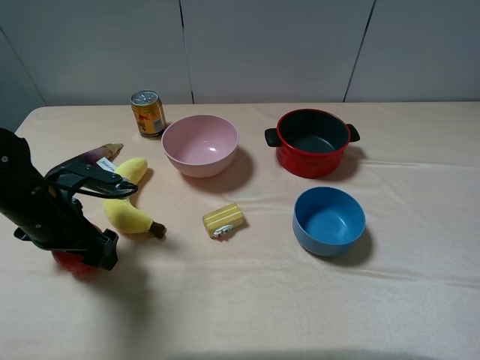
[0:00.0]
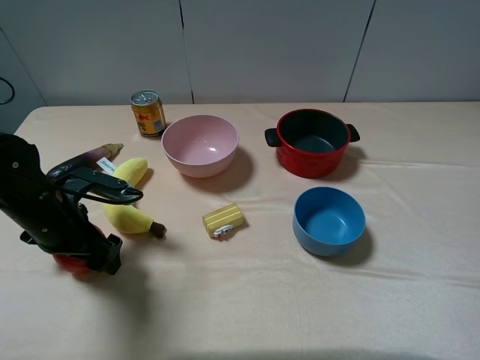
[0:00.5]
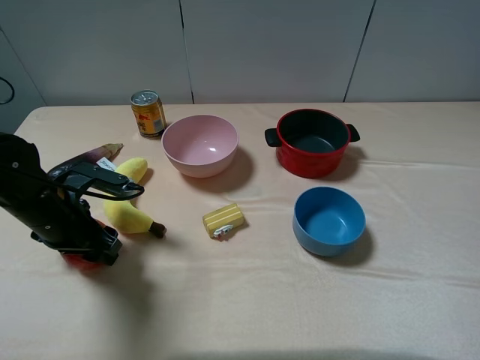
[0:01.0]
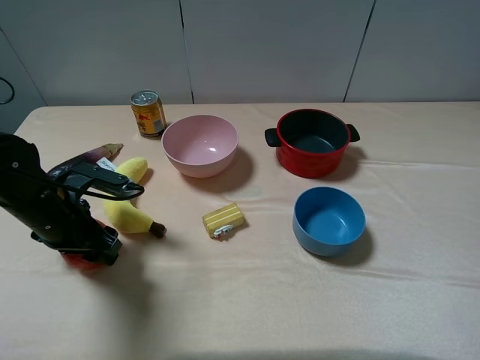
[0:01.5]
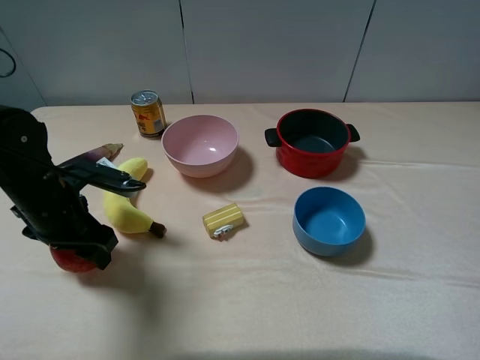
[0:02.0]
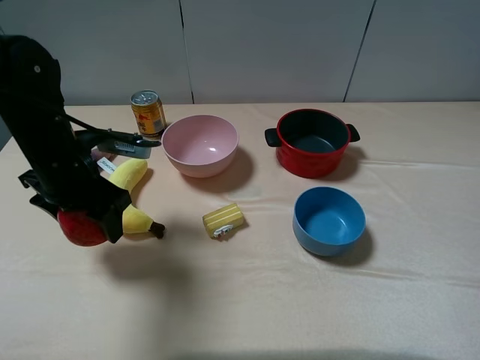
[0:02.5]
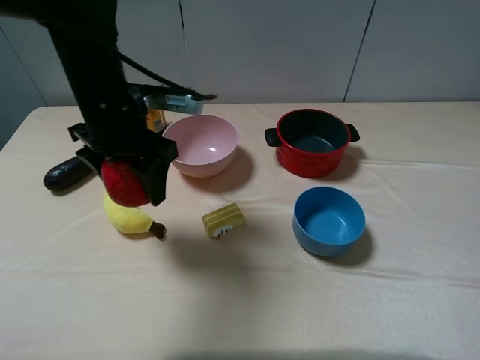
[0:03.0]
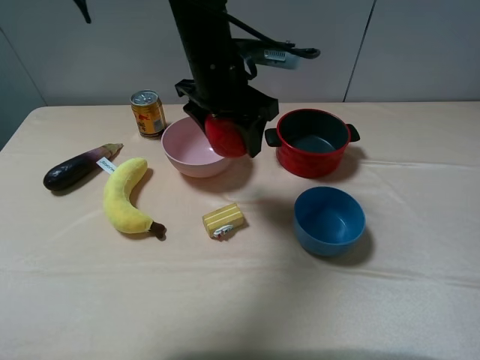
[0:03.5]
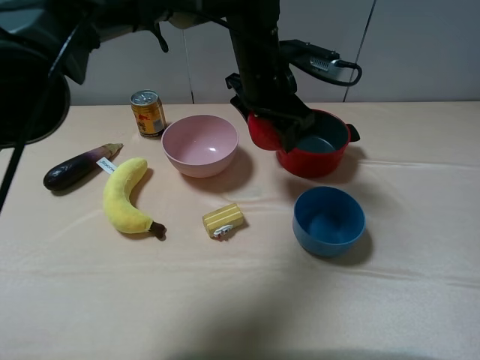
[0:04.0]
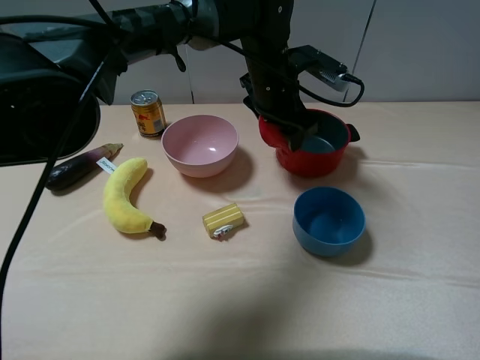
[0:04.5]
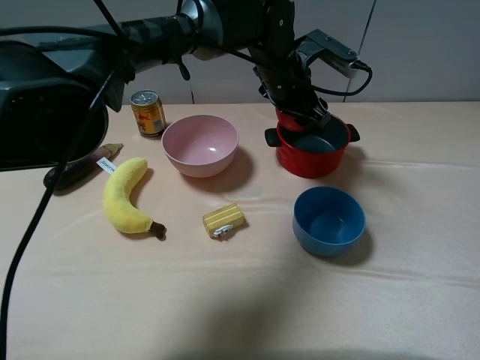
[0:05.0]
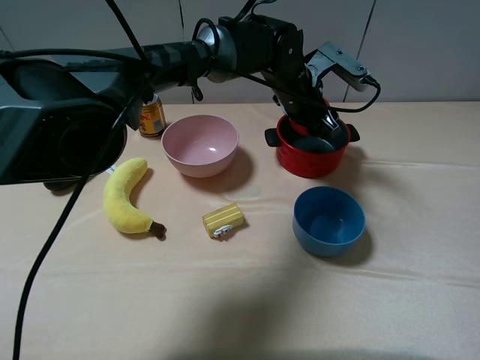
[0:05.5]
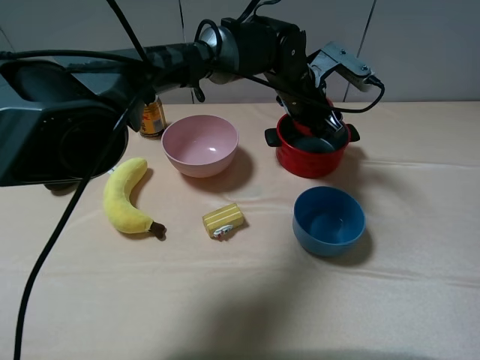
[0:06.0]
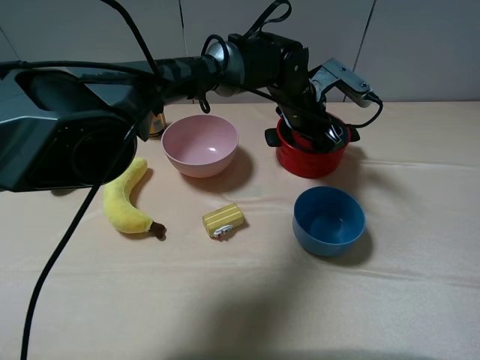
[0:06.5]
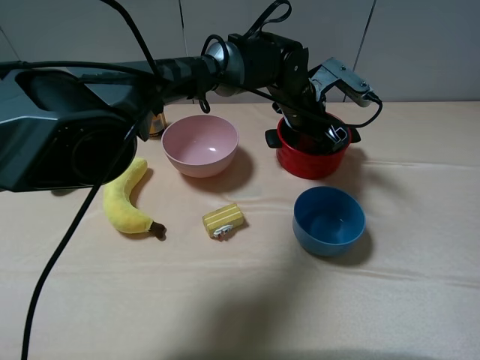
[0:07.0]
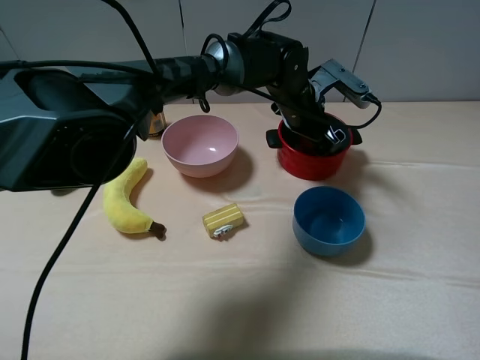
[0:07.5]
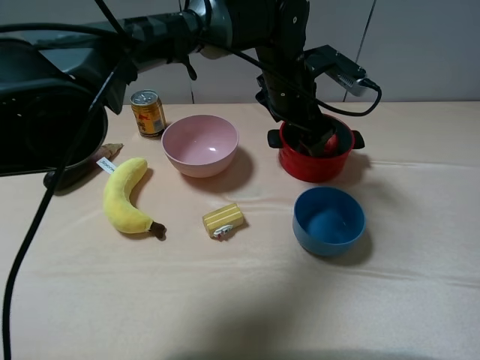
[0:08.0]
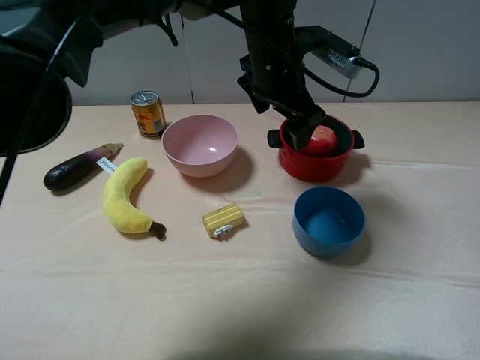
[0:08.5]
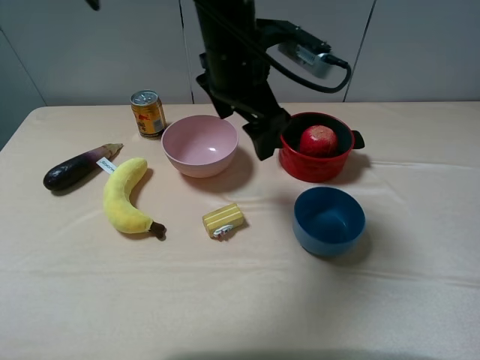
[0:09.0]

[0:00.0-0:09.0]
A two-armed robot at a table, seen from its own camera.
Task of the whole recording: pick up an item with a gripper and place it in a random container on the table.
Step, 0:01.5 to 0:07.5: Place the apple into the red pot with the left gripper.
0:00.0 to 0:02.0: The left gripper closes its fingers.
0:02.0 to 0:04.5: The left gripper goes approximately 35 cm to the right and forward.
0:04.5 to 0:07.0: The left gripper shifts by roughly 5 cm, and opens.
0:07.0 to 0:09.0: The left gripper heads upward, to the left and backward, covering some 20 cm.

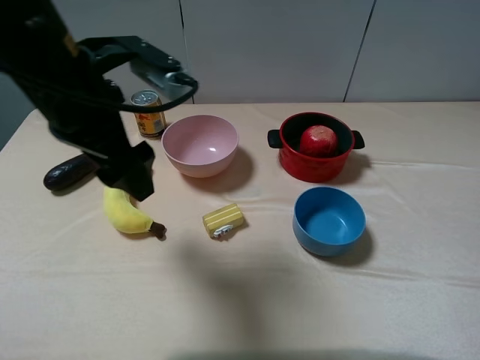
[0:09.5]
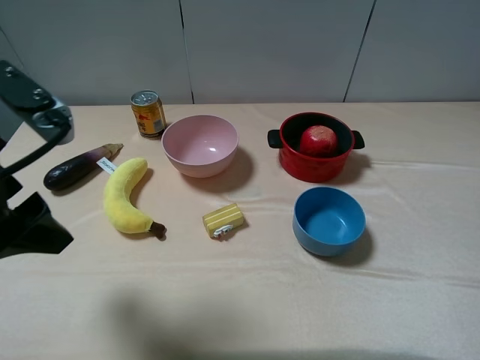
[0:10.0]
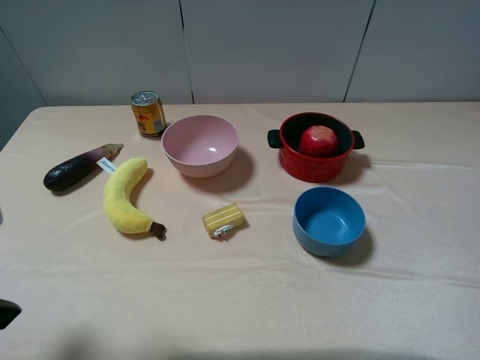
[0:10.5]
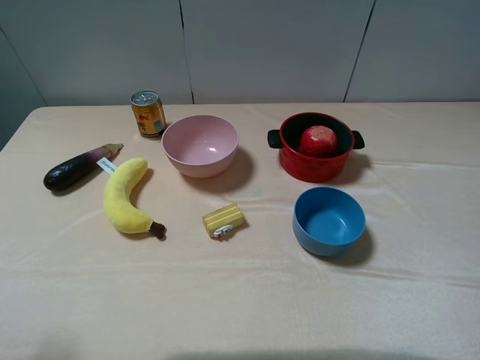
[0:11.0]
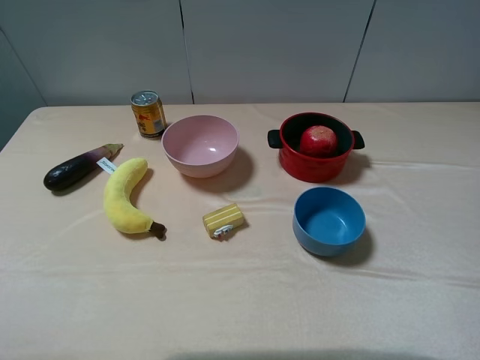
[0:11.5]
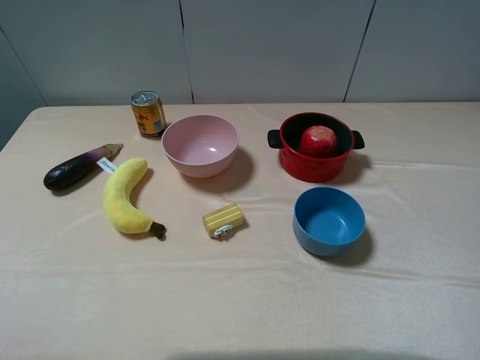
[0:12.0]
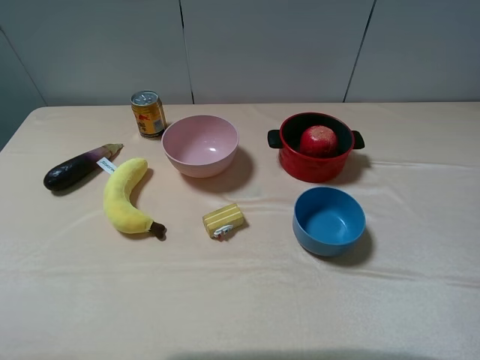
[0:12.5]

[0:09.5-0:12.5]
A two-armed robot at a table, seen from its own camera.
Task of the whole recording: pick up an item with a gripper and place it in a random container on the table.
0:09.5 to 0:11.0: The left gripper shifts some 20 cm backward and to the left.
